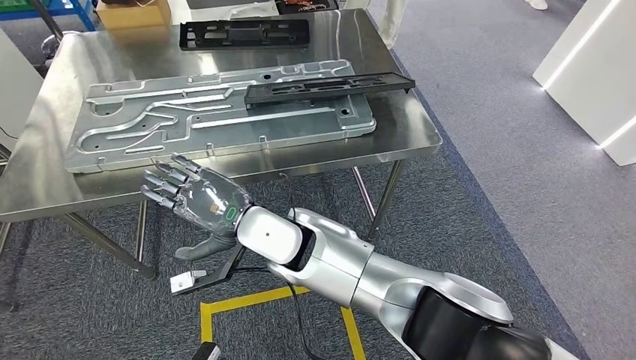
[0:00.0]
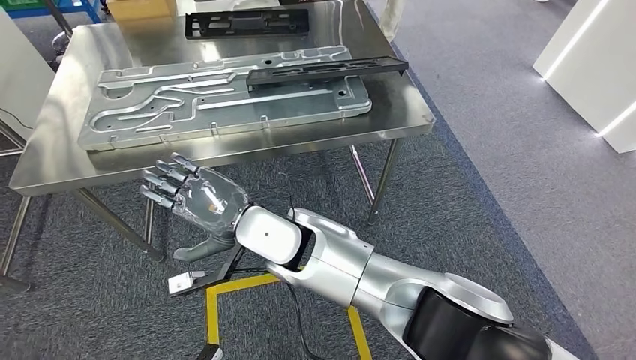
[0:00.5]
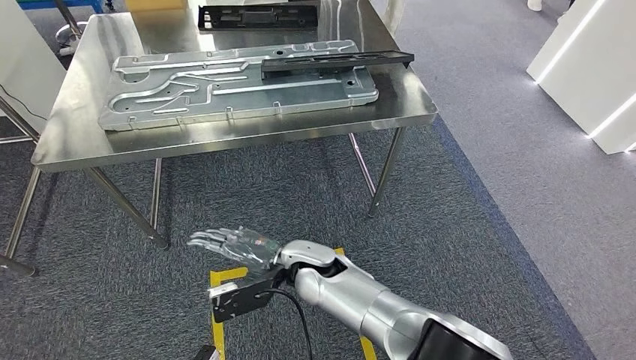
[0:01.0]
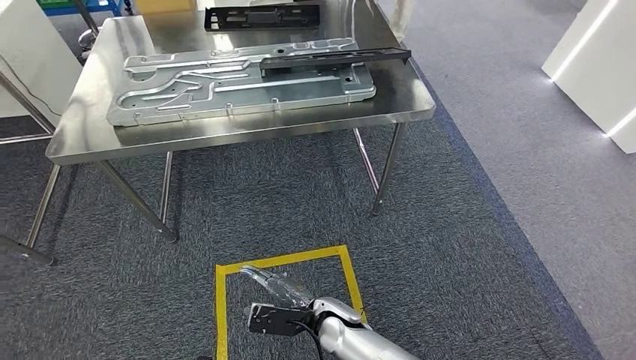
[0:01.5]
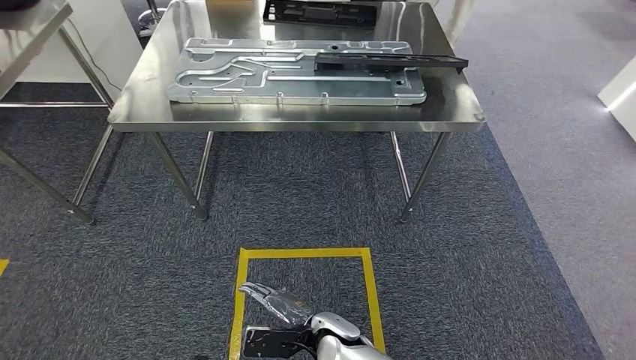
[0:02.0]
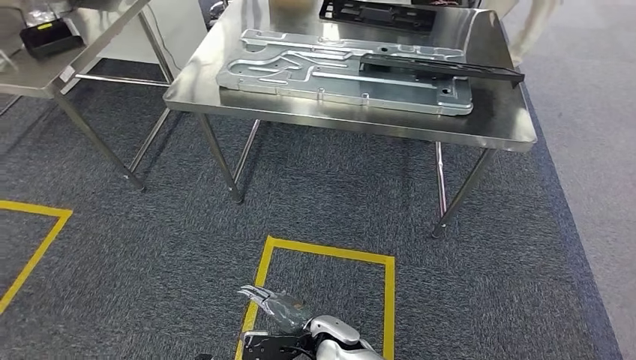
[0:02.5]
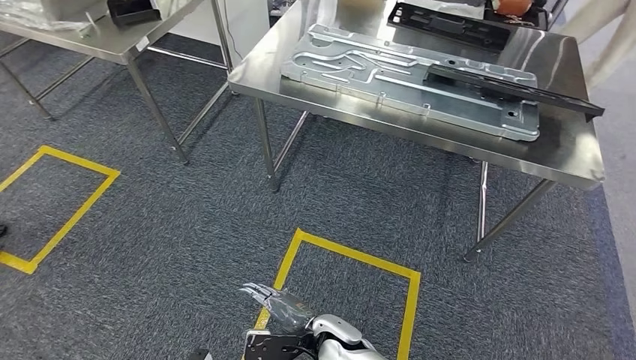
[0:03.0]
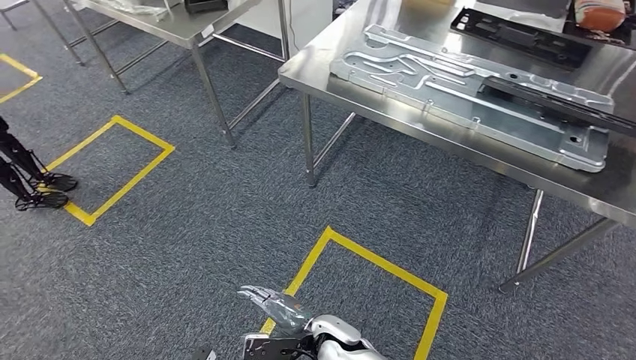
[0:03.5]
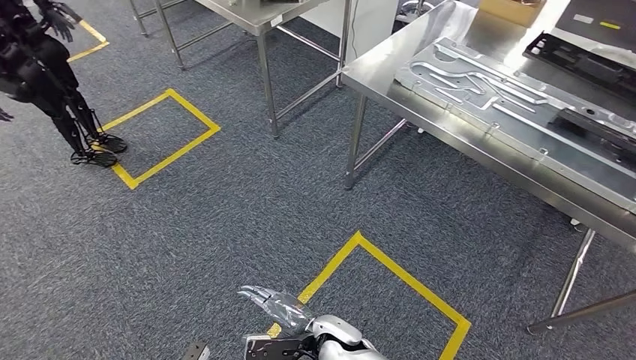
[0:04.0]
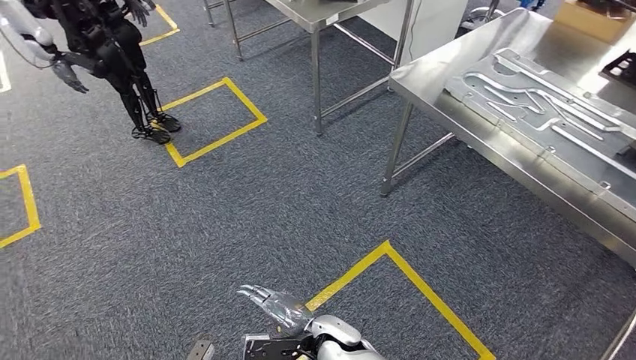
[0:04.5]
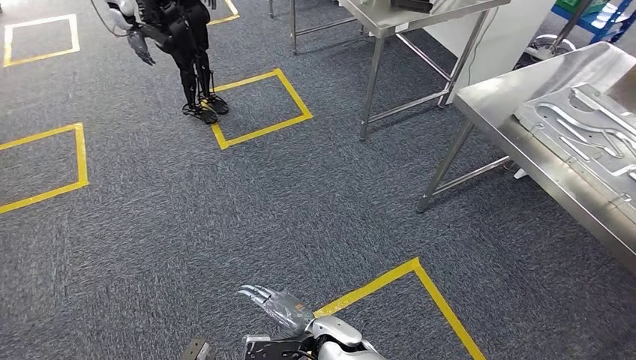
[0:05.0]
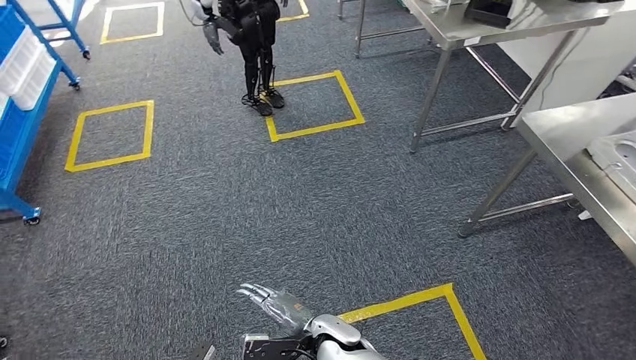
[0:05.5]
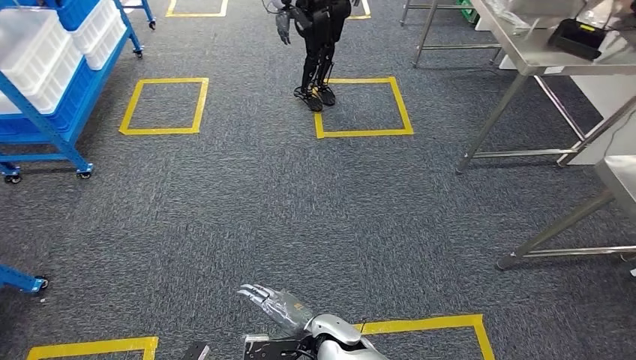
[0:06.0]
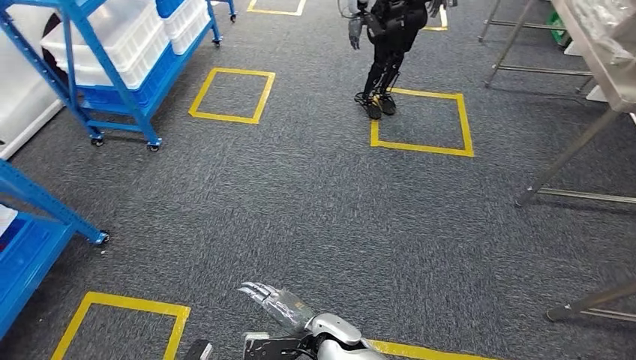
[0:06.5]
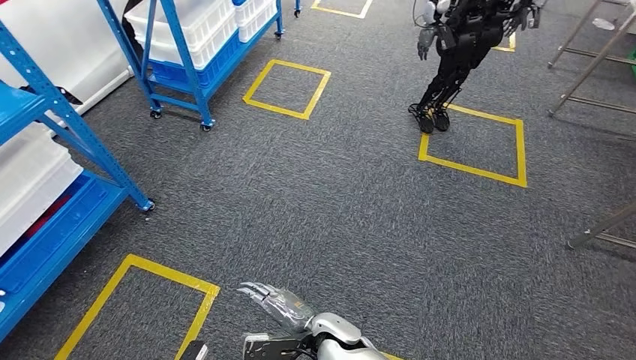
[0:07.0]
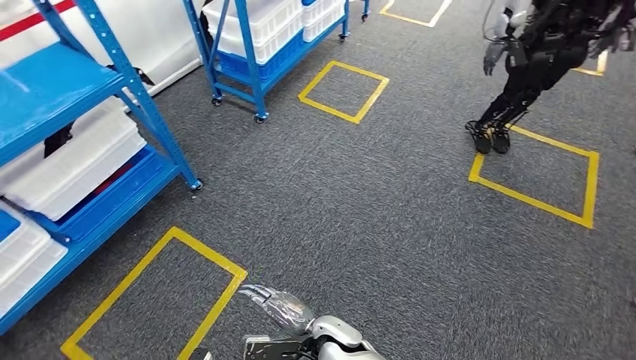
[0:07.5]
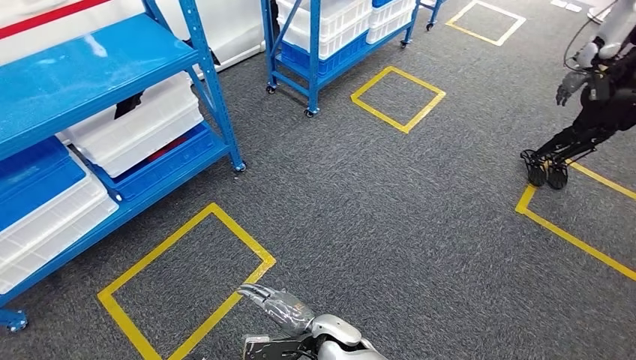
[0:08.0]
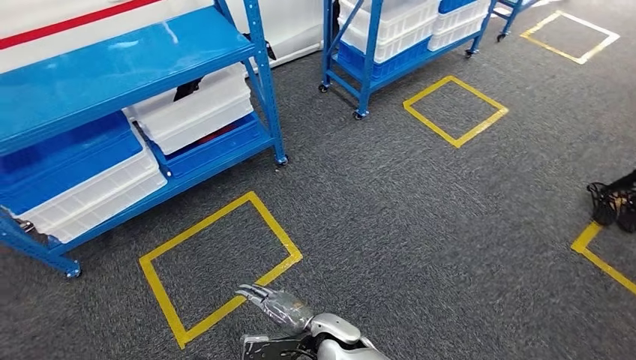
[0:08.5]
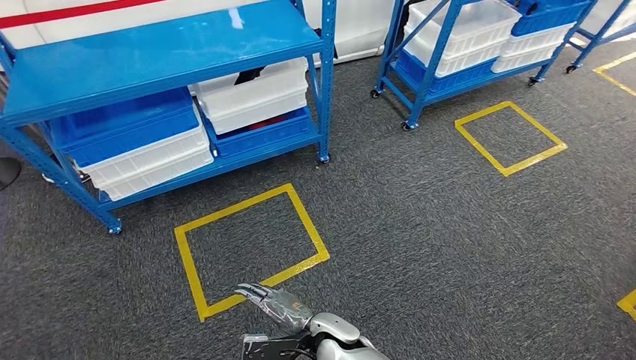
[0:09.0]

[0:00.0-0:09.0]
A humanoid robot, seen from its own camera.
Step, 0:03.5 to 0:09.0: Move to the initial position of the shelf.
